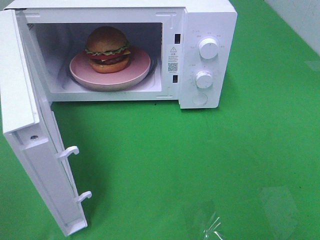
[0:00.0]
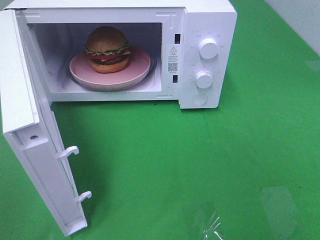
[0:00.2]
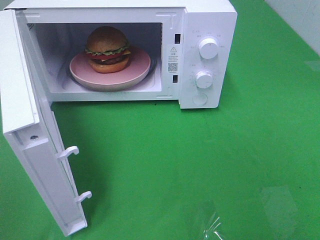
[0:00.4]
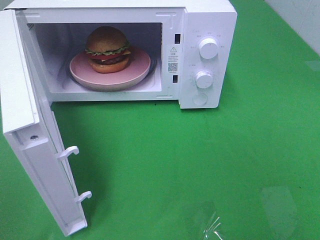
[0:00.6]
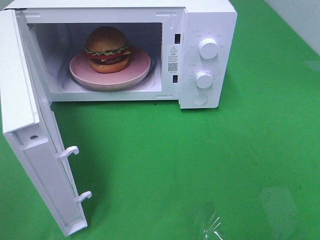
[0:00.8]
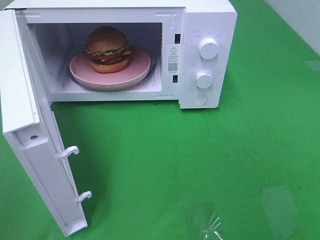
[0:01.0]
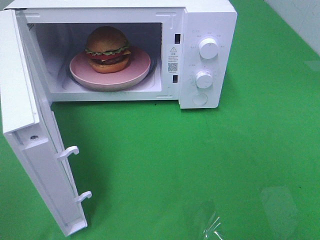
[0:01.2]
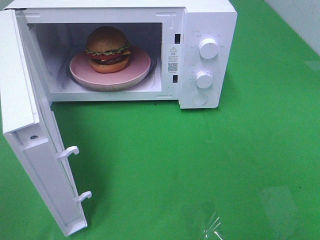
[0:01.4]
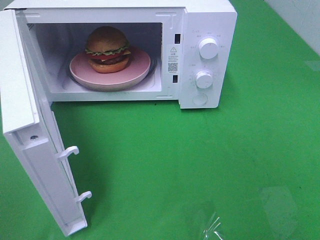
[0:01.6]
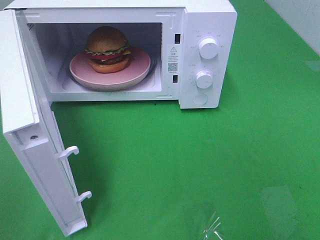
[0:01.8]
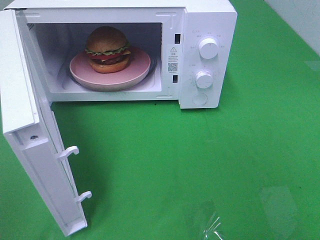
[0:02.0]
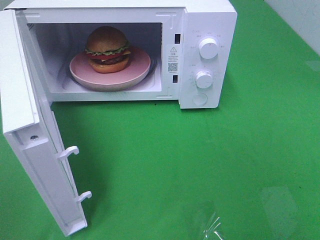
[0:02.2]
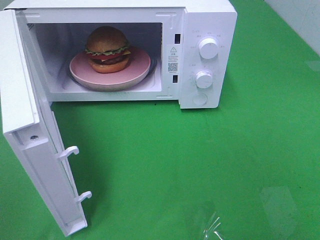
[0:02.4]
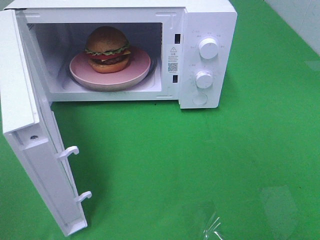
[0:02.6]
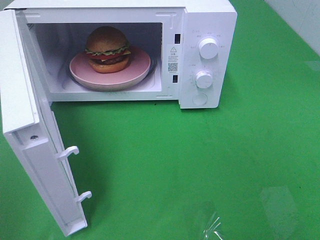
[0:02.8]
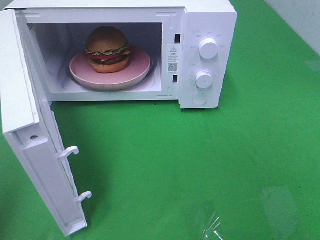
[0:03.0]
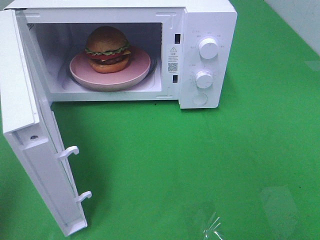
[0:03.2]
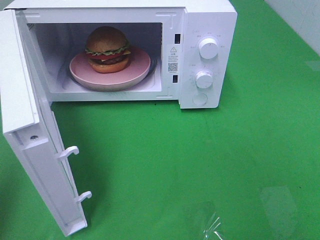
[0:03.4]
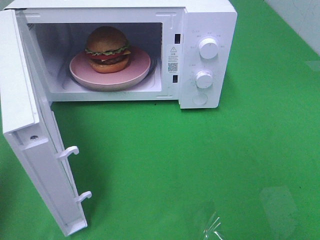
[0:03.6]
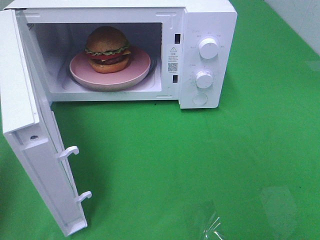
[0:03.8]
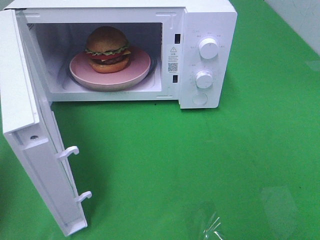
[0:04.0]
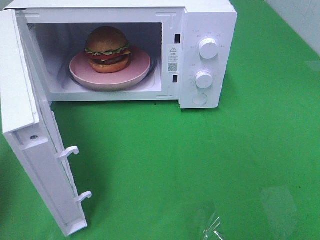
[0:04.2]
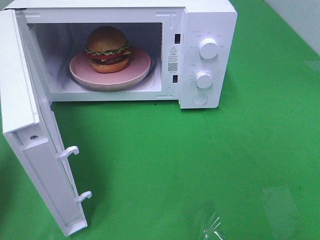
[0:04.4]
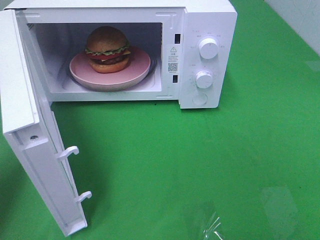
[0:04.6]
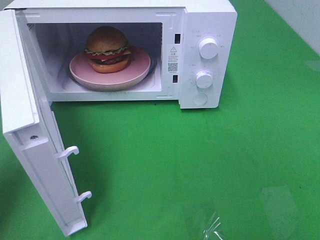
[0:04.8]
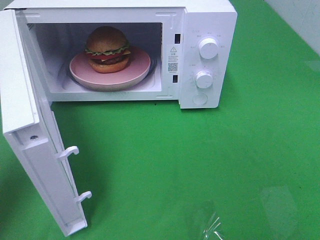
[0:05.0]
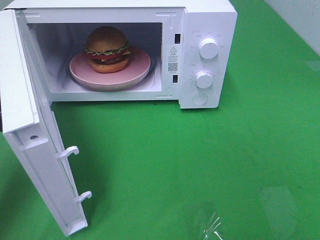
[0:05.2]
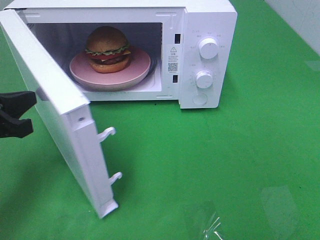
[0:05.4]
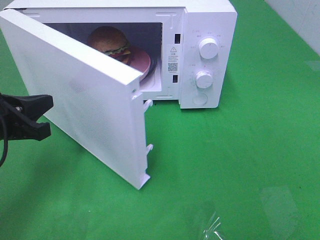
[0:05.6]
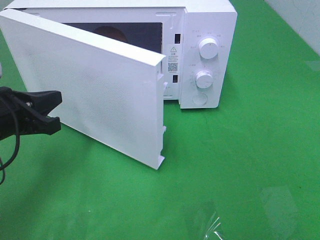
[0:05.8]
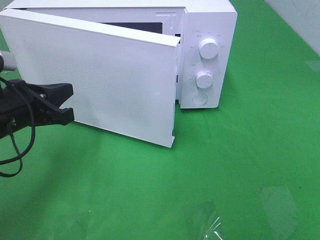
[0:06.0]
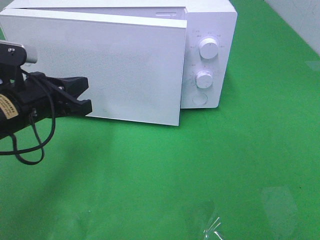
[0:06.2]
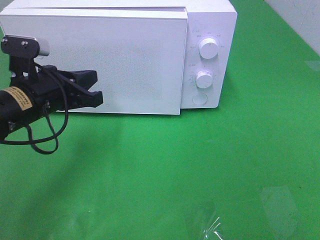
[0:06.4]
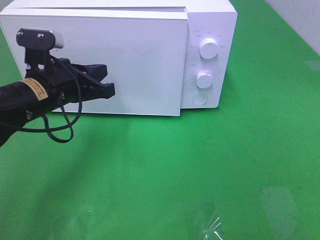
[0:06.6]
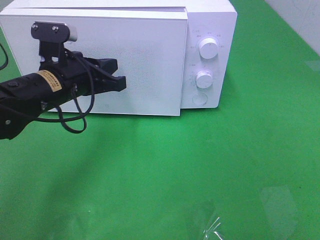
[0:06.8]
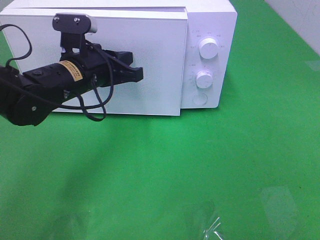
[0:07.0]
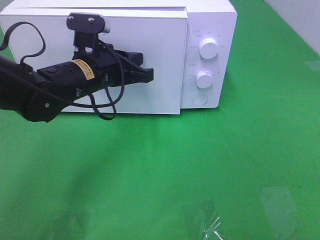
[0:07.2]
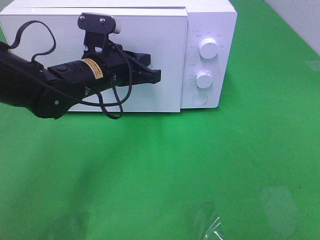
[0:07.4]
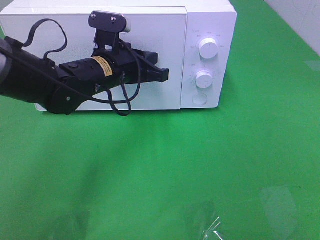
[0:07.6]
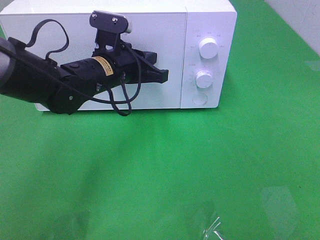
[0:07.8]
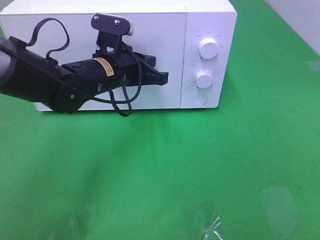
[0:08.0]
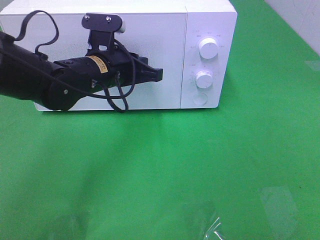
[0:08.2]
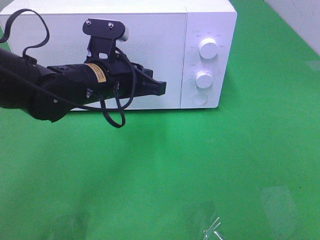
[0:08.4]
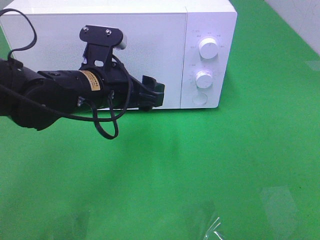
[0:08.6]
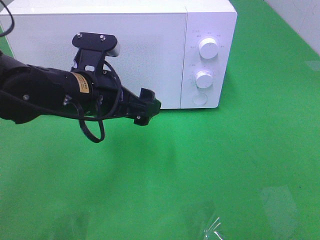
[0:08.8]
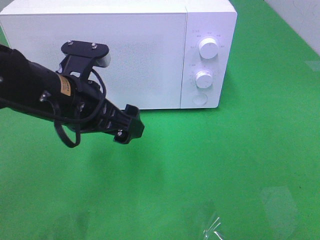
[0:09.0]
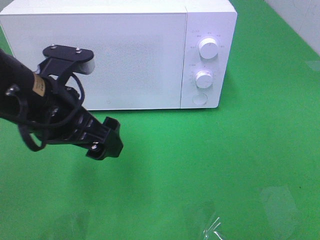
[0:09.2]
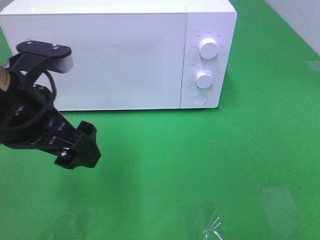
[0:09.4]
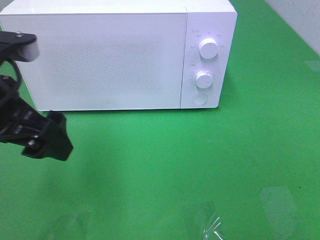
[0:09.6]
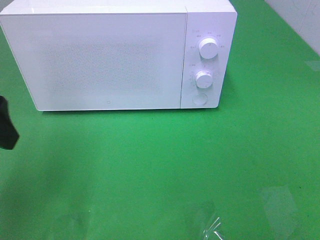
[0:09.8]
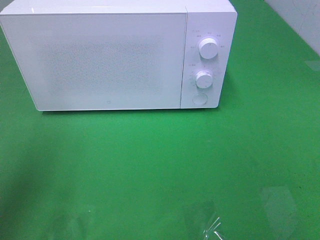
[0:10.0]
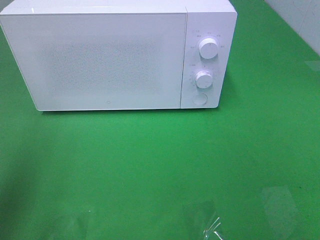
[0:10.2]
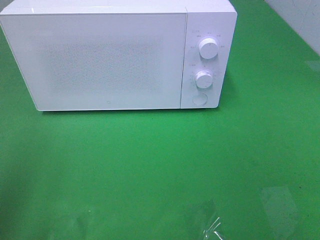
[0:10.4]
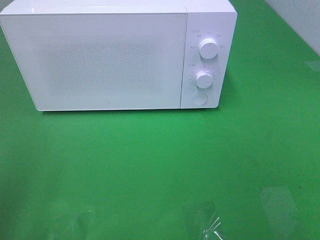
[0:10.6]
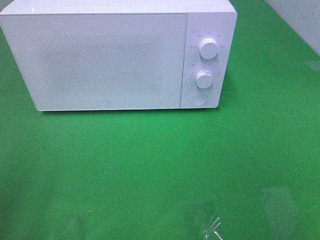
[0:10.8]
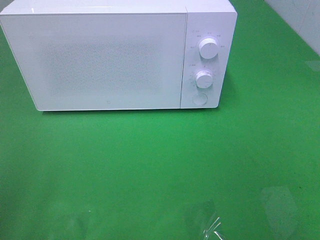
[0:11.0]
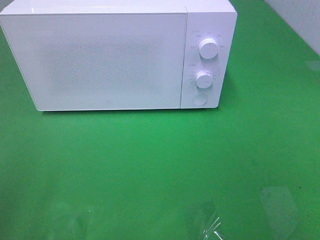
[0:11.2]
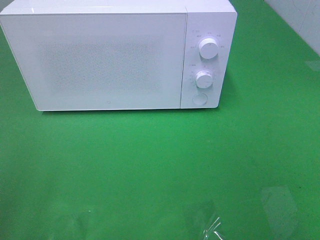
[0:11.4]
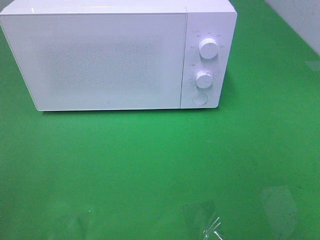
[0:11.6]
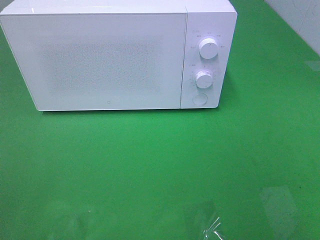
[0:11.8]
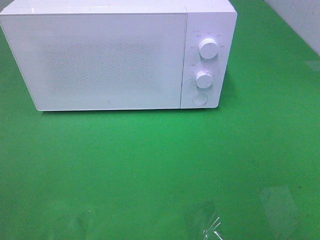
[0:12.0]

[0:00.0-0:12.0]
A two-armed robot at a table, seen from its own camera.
Task of the whole recording: Heat the burger.
Step, 0:00.0 to 0:08.8: Left hand: close the microwave door.
0:00.0 to 0:01.6: Neither gripper changes place.
0:04.4 to 0:06.0: The left gripper shifts roughly 15 cm to the right, downward and forward.
0:06.0 to 0:07.6: The left gripper heads to the right and forward, covering approximately 15 cm.
0:07.6 to 0:09.0: The left gripper heads backward, covering approximately 10 cm, and opens its fingers.
0:09.0 to 0:10.4: The left gripper travels to the left, backward and upward by some 25 cm.

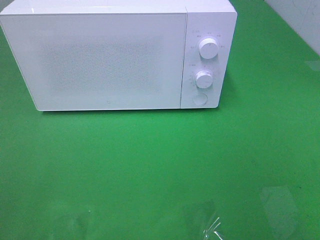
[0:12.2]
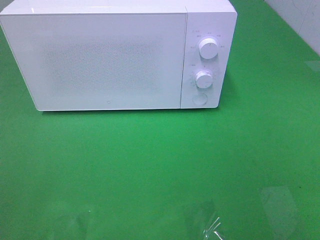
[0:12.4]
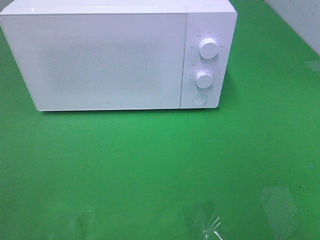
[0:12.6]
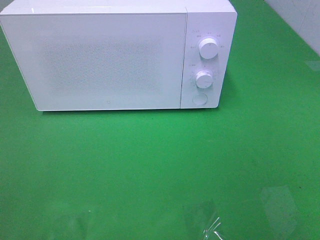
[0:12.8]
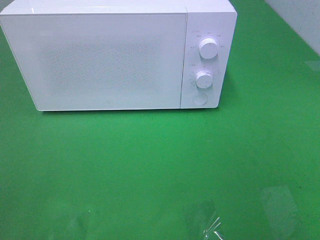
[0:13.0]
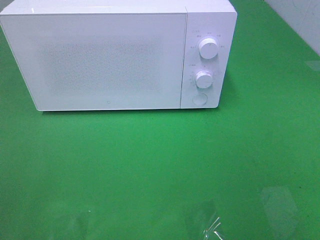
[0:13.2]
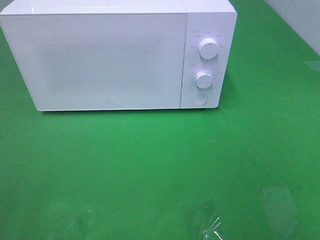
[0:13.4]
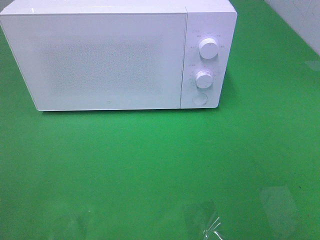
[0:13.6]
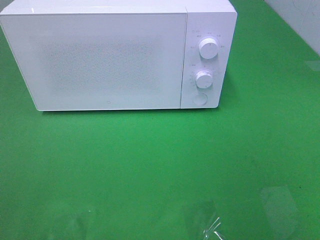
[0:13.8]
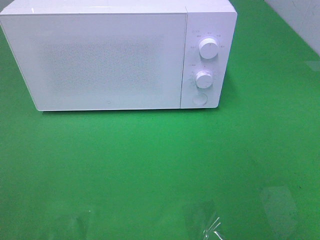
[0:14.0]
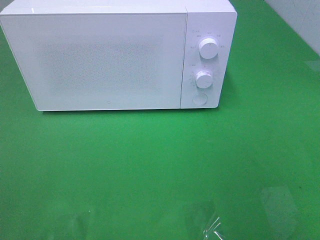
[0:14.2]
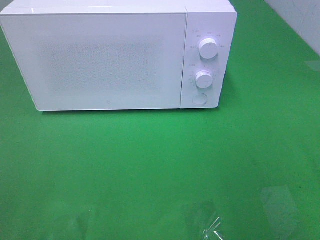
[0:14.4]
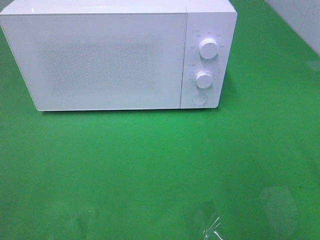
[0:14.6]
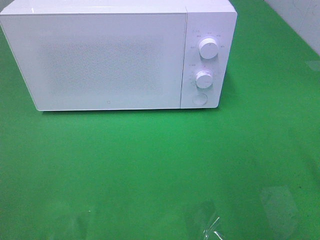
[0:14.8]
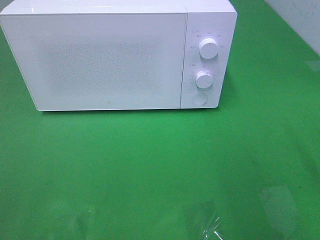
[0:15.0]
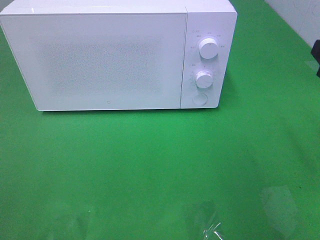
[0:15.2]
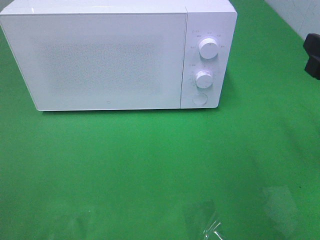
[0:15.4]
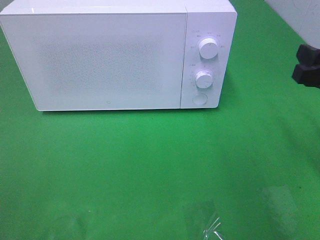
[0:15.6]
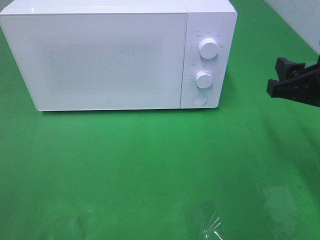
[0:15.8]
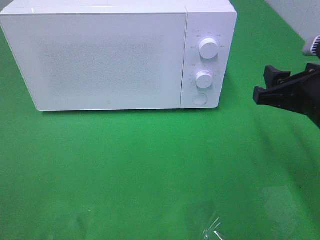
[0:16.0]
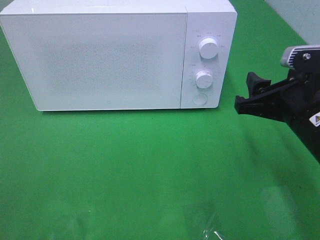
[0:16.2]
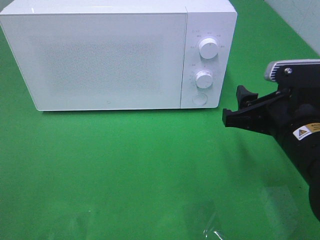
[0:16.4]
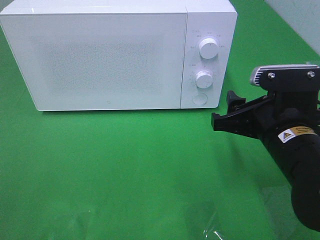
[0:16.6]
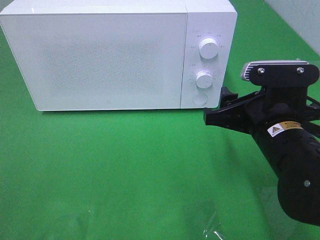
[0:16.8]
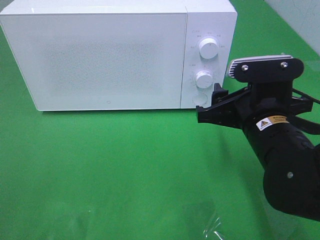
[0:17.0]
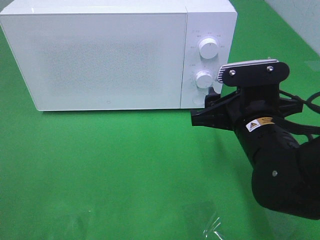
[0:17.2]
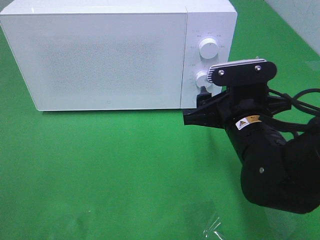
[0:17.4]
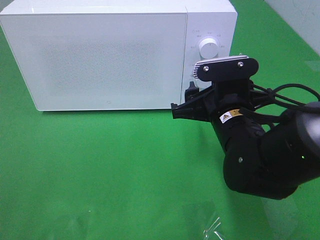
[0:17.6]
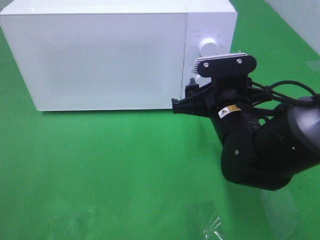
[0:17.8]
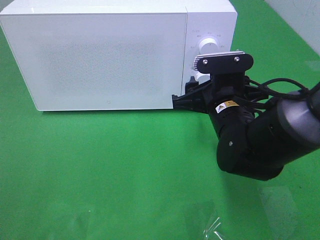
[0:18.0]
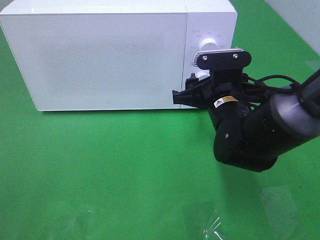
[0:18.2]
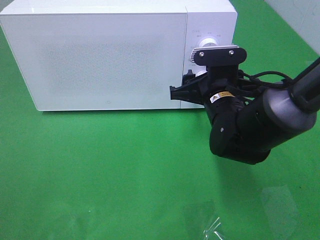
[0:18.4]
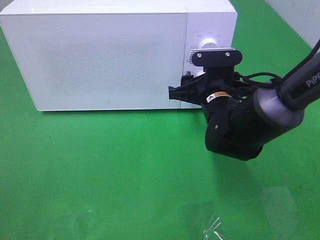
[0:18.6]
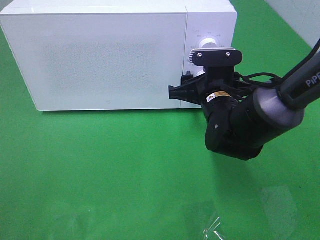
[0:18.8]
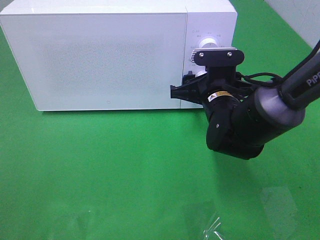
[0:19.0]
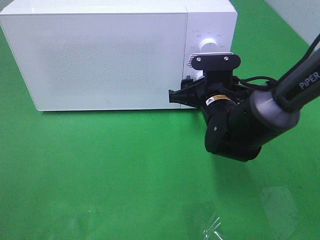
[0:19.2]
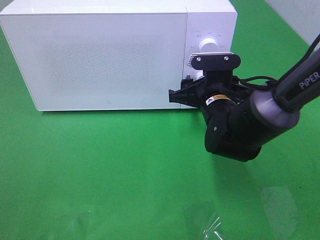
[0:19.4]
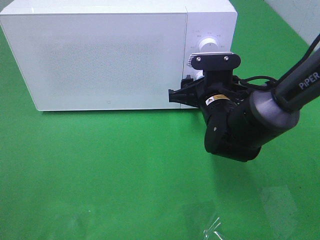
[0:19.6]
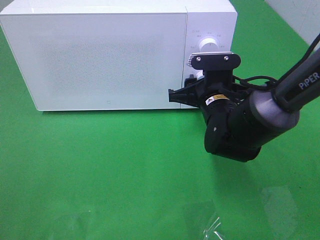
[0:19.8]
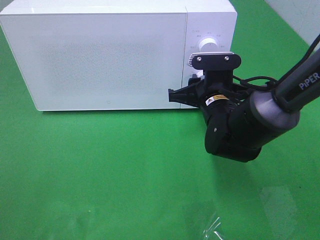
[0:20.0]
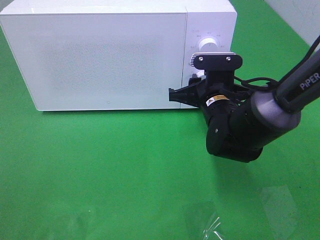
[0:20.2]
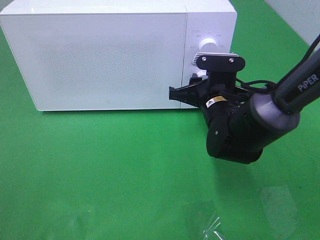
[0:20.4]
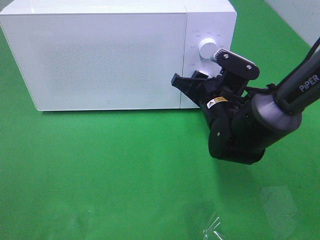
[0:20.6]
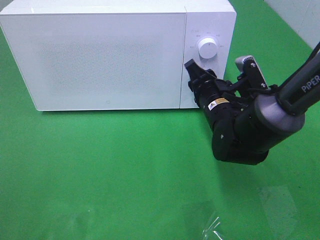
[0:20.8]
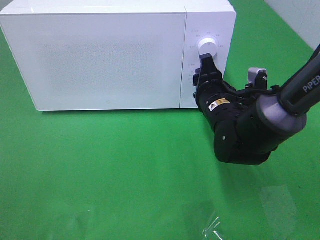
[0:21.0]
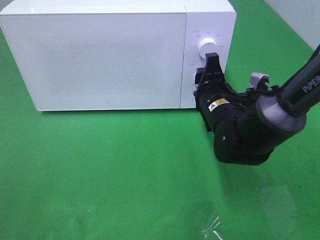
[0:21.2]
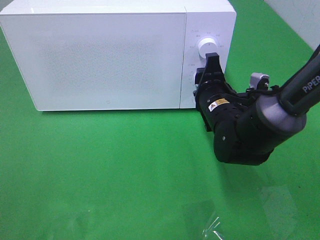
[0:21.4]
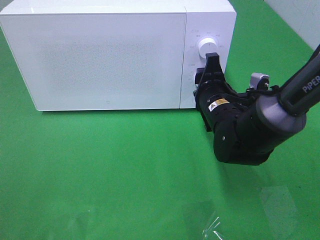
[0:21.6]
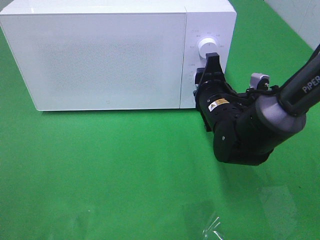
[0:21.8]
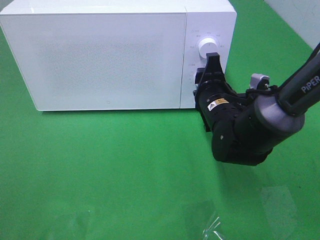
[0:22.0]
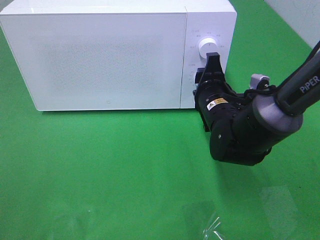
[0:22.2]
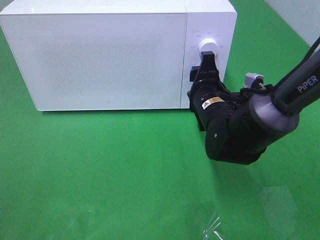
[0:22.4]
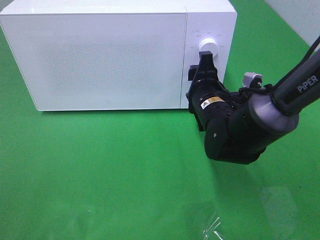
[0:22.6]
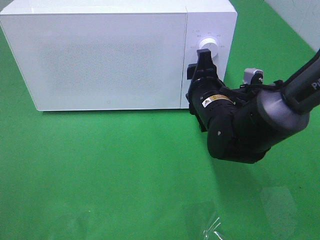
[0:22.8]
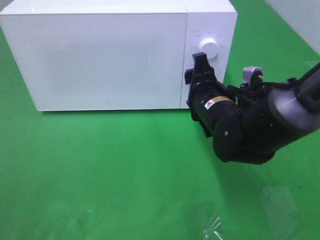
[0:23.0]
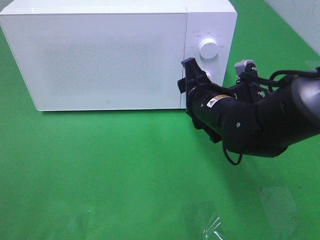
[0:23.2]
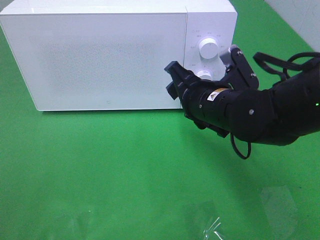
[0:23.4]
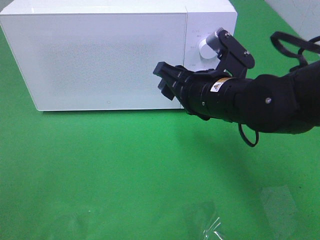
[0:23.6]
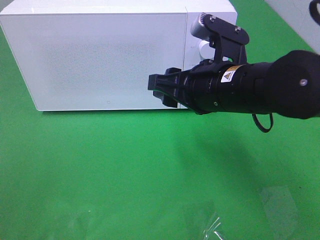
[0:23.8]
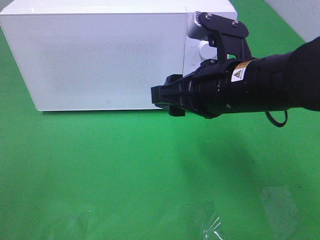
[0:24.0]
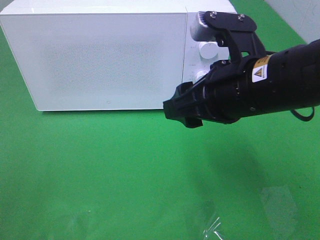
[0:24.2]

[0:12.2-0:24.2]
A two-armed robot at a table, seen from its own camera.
Task of the whole recording: Heat the burger.
Step, 0:12.2 to 0:22.8: Right hand: twist timer button.
0:15.2 to 0:16.6: The right gripper shifts some 15 cm to the left and downward.
0:16.6 to 0:18.2: The right gripper travels forward by some 10 cm.
0:18.2 to 0:19.8: The grippers make only small movements.
0:21.2 to 0:22.6: Both grippers stay about where they are.
0:22.6 to 0:24.2: The right gripper is displaced upward and backward by some 15 cm.
